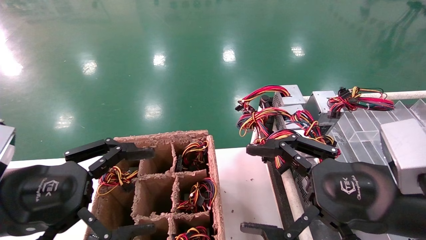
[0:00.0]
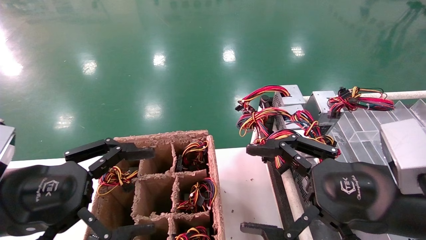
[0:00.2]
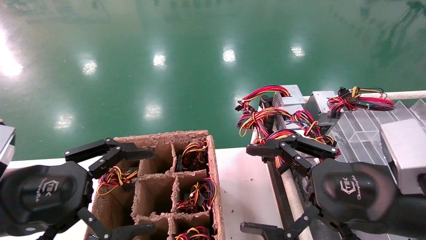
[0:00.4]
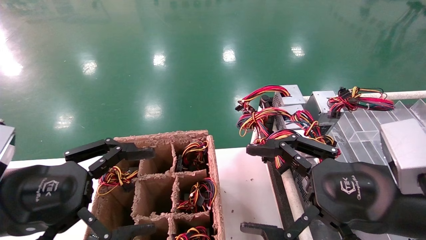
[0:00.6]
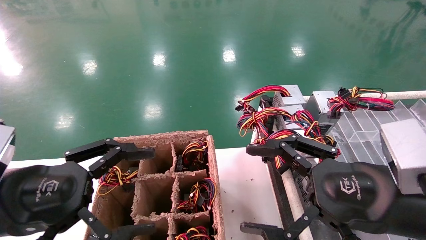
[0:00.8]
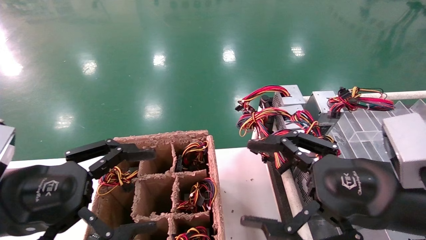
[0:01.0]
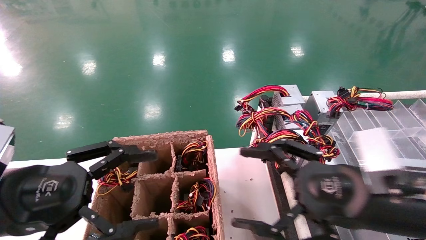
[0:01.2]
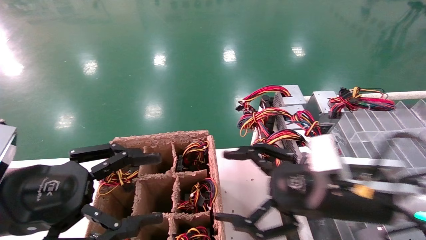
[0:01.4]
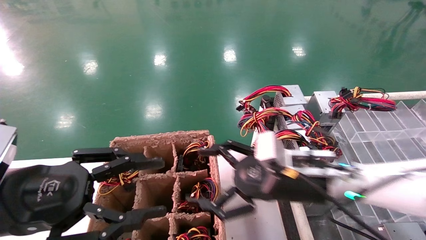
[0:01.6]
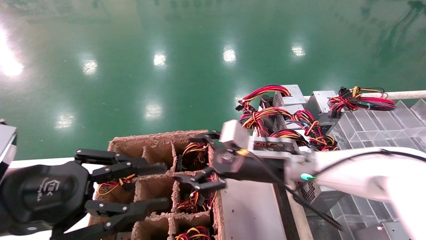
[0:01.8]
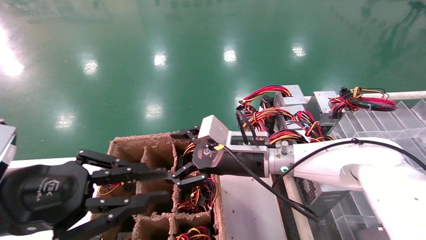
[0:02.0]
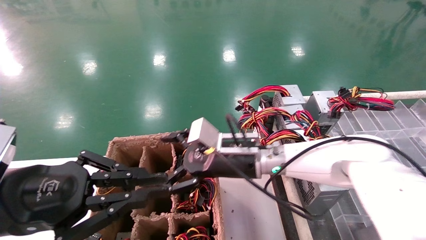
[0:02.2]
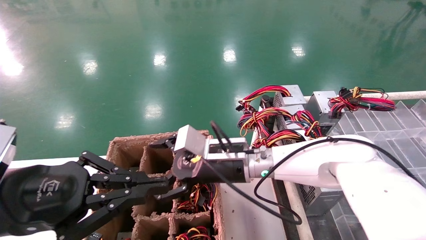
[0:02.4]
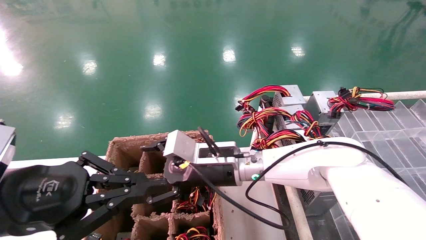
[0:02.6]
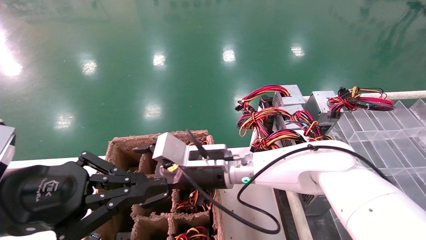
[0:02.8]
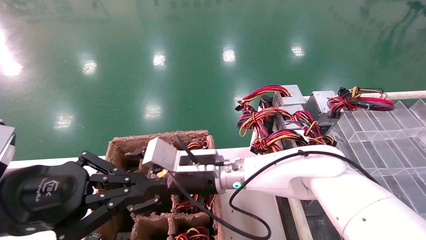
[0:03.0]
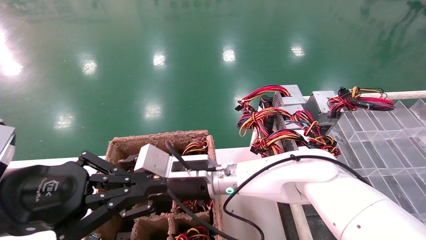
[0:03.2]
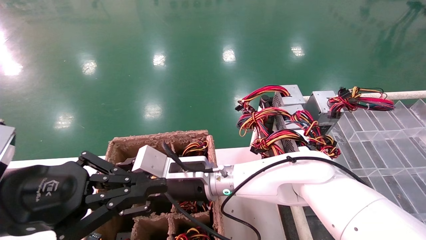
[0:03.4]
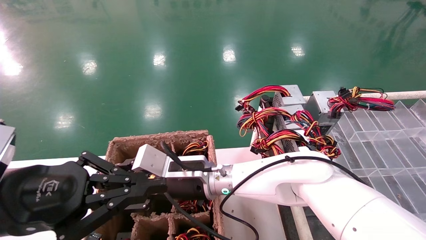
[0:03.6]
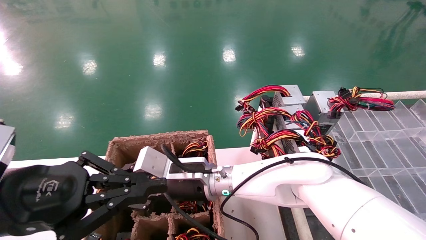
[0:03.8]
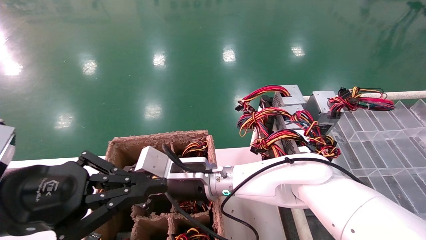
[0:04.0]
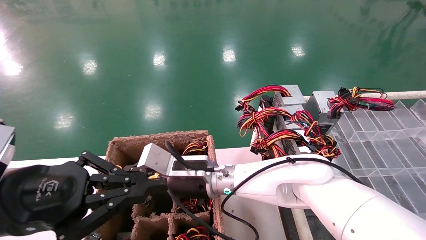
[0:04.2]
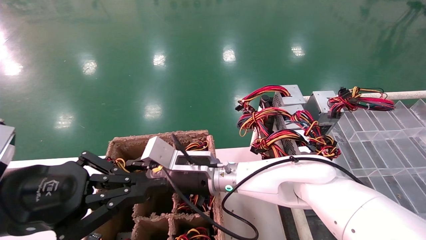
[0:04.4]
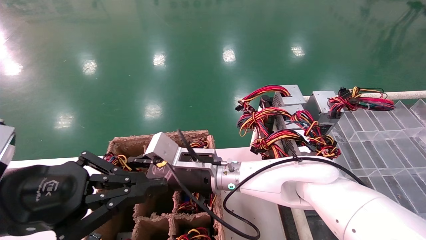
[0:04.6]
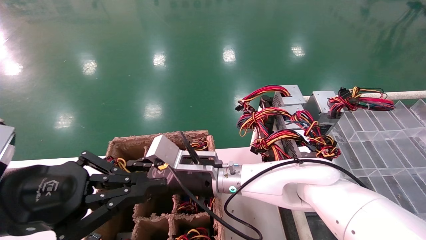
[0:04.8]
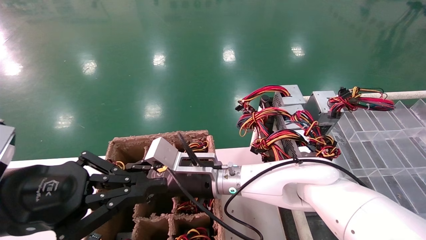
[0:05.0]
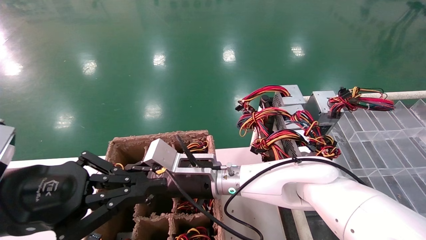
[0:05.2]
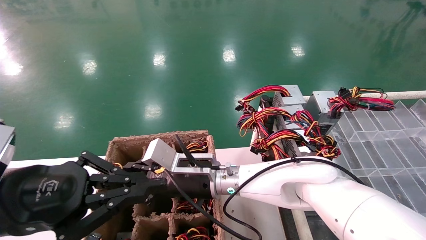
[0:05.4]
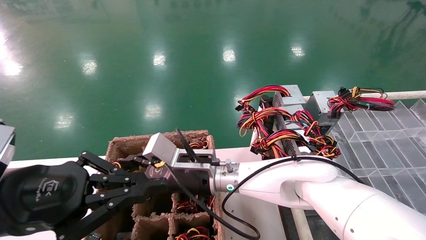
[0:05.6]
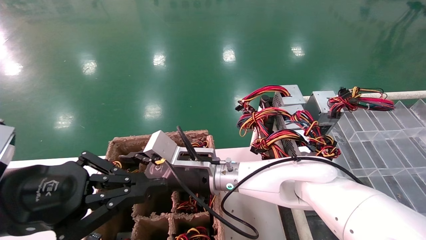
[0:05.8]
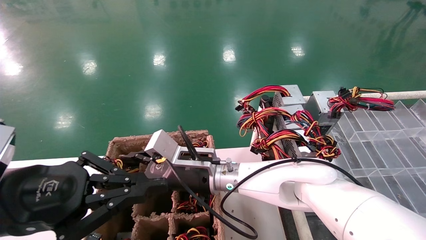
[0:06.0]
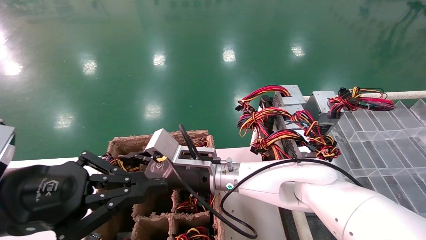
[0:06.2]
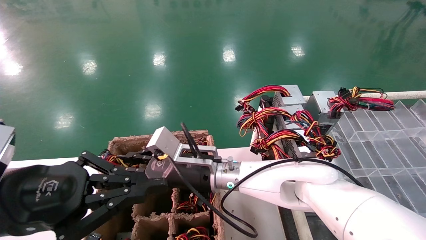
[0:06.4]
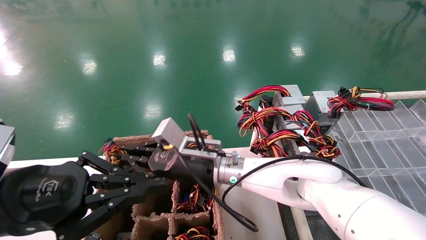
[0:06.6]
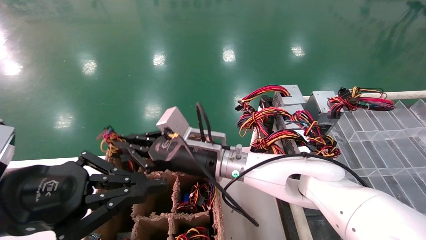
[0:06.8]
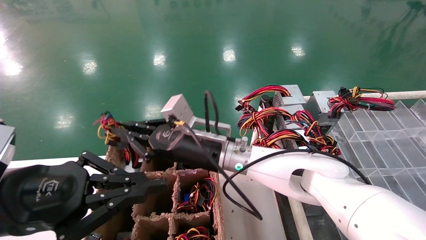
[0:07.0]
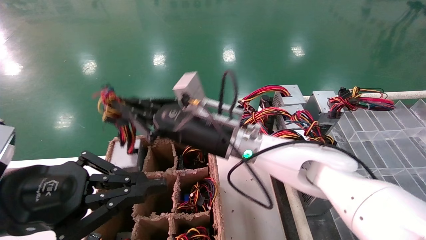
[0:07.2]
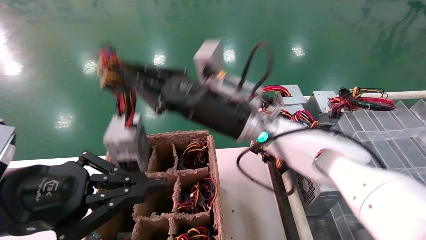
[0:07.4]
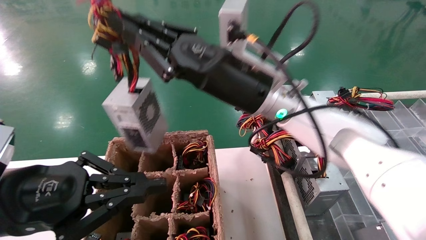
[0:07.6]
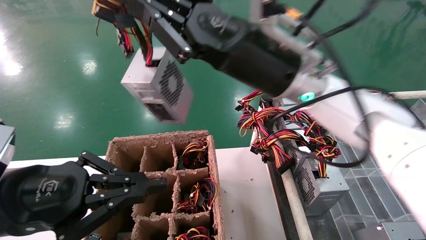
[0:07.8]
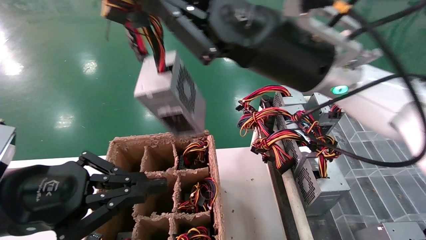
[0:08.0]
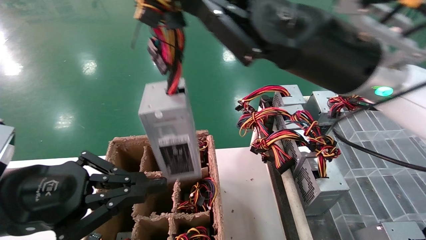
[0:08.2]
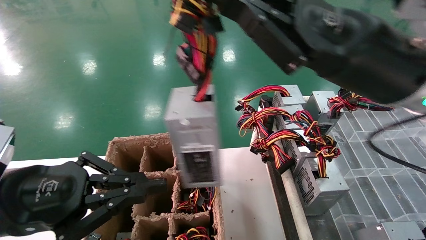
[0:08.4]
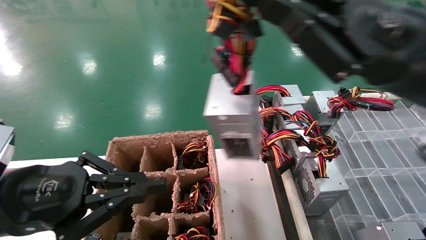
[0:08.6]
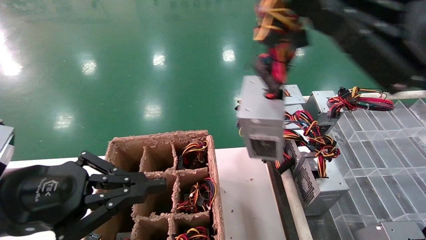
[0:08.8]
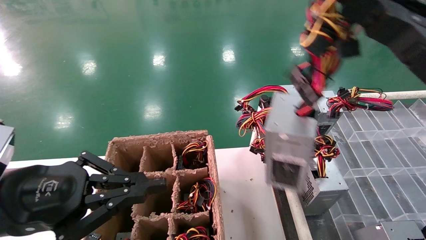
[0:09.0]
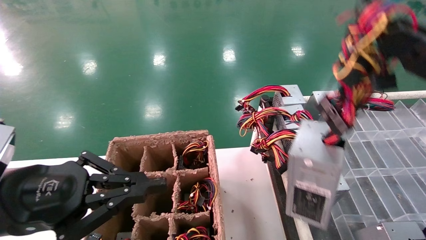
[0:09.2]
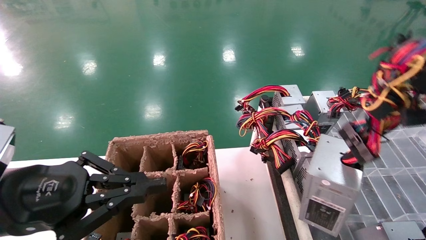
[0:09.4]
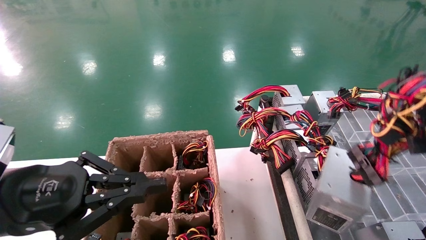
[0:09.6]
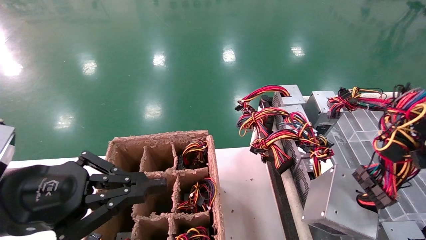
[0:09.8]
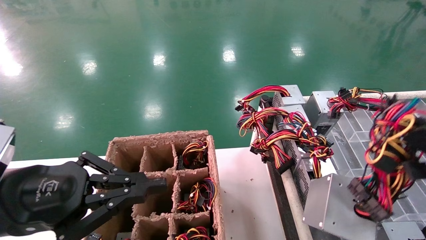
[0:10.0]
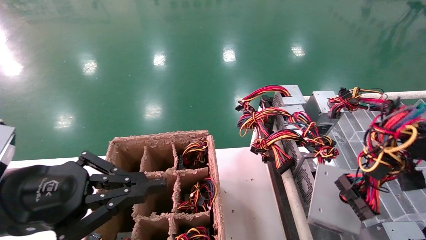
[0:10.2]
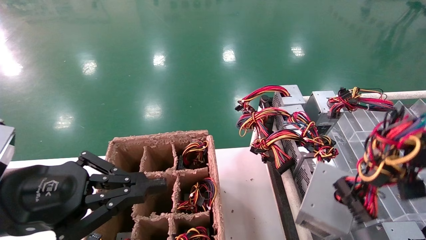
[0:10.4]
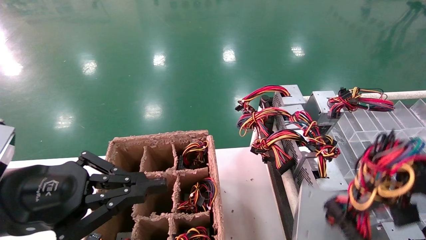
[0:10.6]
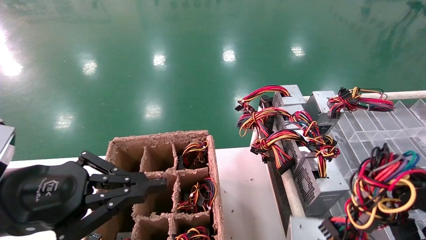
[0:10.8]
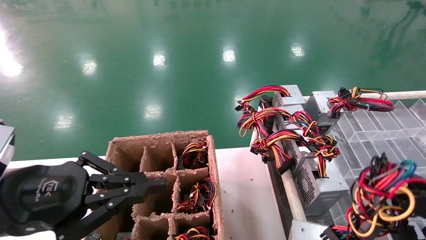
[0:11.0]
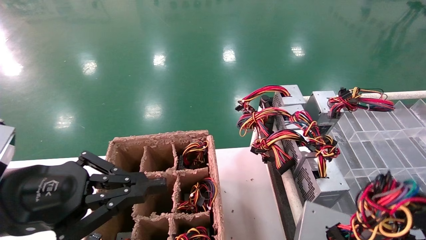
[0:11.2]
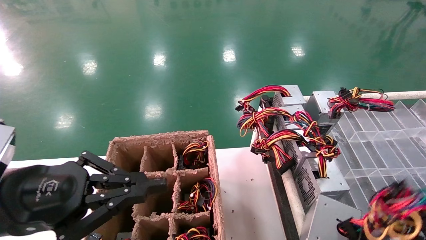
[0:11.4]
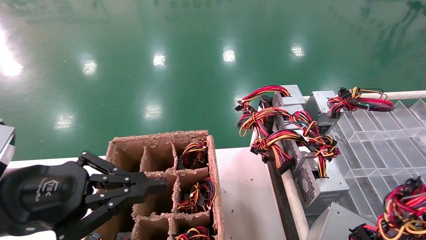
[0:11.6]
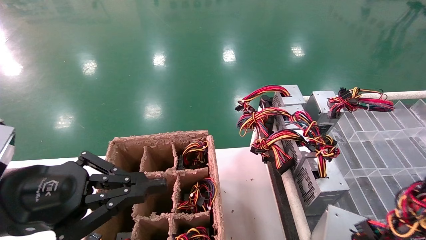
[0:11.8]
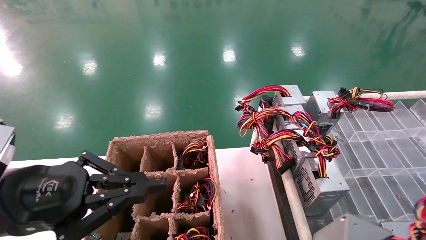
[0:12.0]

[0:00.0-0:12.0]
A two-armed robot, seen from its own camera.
Step, 0:01.4 to 0:04.2: Grab the main unit power supply from the containment box.
0:00.0 to 0:01.6: The right gripper moves forward and to the left, about 15 cm.
0:01.6 to 0:03.0: The left gripper closes up. The right gripper shifts about 15 cm to the left.
0:03.0 to 0:04.4: The right gripper closes its fingers.
0:04.4 to 0:06.0: The grippers make only small movements.
0:06.0 to 0:07.6: The right gripper shifts approximately 20 cm upward and to the right.
0:07.6 to 0:09.0: The right gripper travels to the right and backward by about 30 cm.
0:09.0 to 0:10.4: The right gripper moves downward and backward, about 15 cm.
0:10.4 to 0:12.0: The right gripper goes approximately 10 cm to the right and backward.

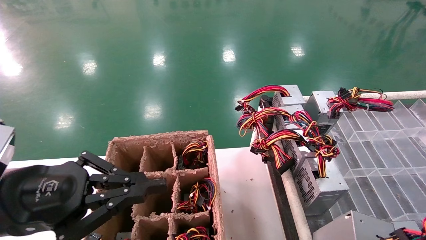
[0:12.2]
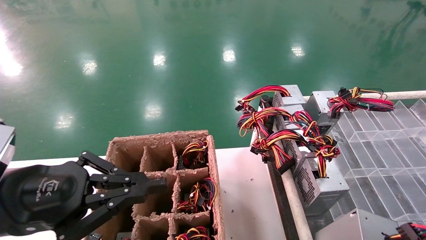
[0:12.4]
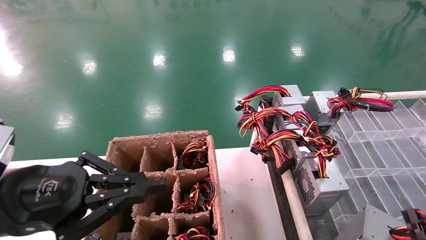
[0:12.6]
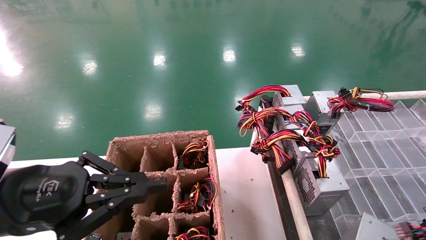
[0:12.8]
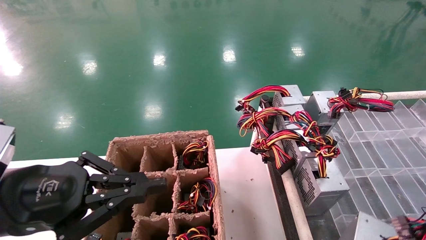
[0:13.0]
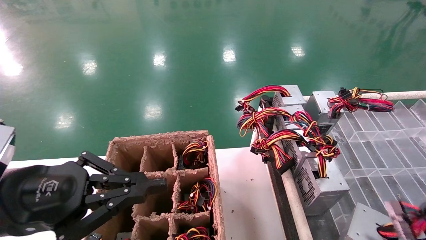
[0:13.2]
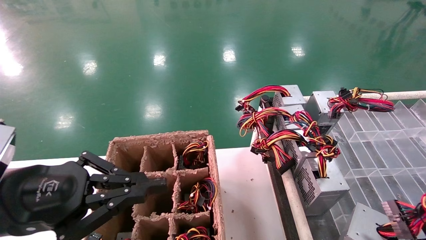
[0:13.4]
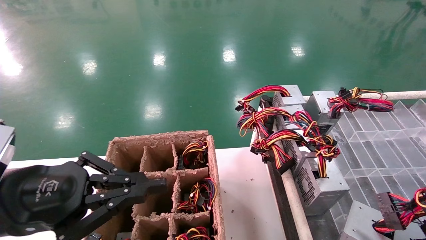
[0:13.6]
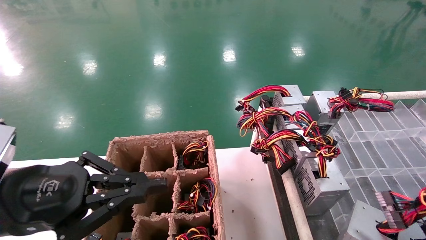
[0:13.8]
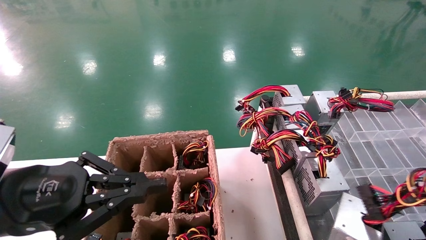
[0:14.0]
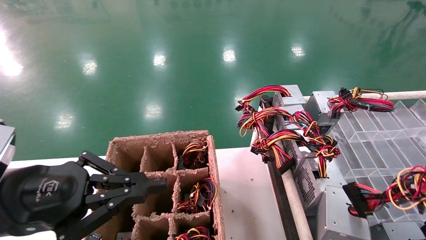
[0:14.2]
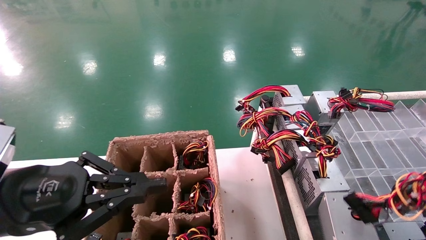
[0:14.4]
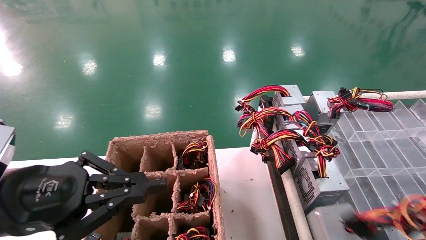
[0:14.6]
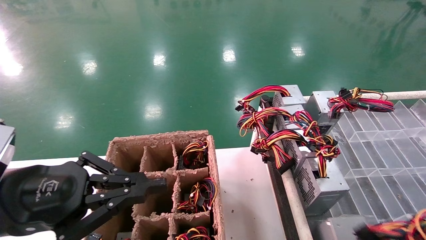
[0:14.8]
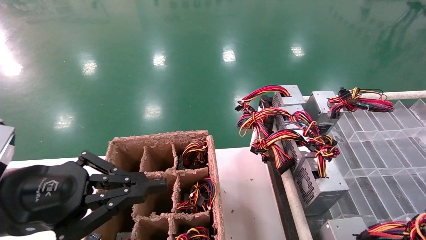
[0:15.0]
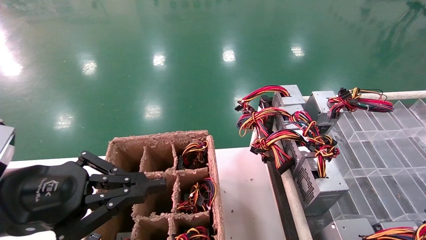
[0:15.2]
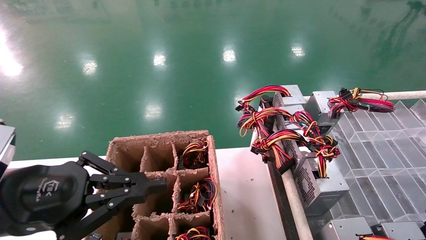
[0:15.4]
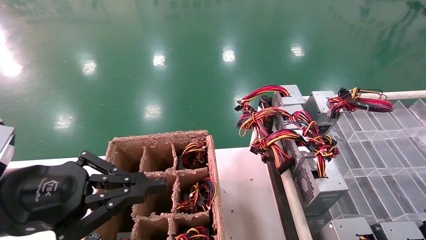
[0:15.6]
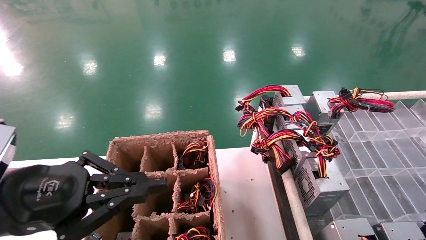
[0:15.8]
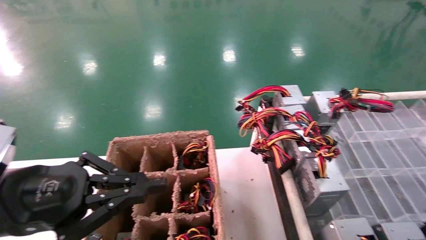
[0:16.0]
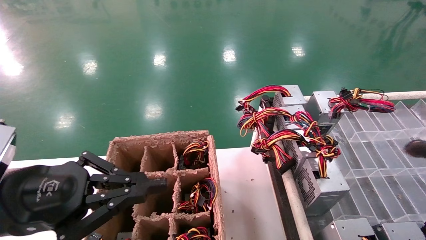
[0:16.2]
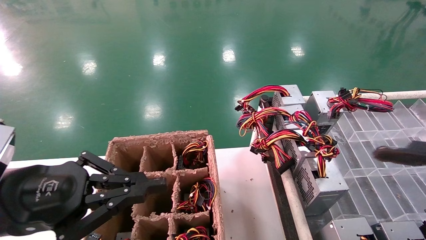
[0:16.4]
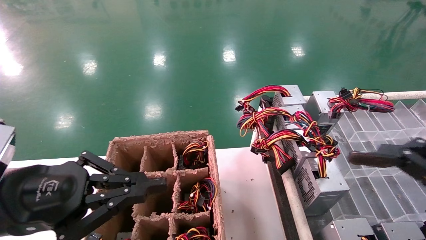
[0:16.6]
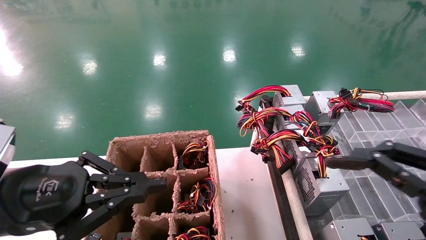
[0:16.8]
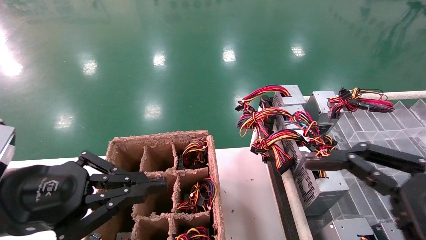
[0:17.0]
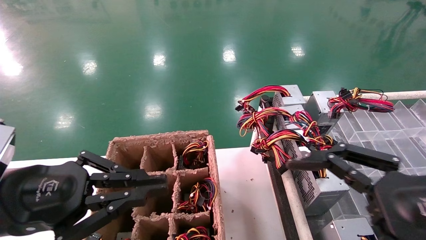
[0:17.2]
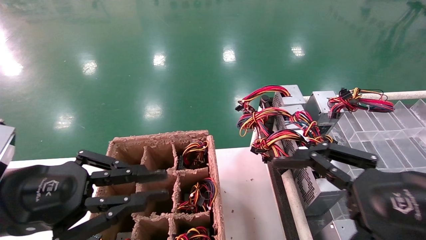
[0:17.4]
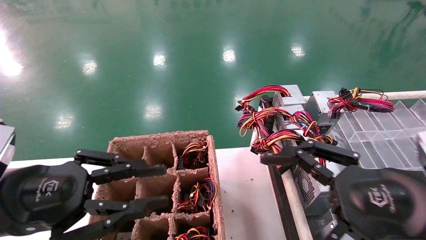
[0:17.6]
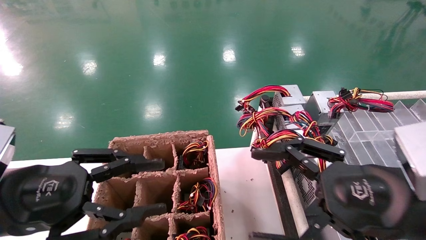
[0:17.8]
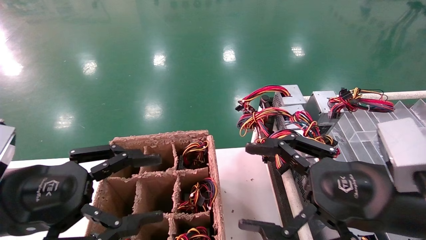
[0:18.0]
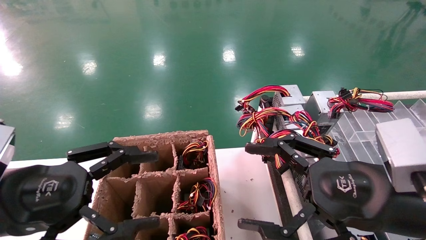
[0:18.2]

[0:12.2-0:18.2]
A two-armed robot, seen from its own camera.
Step, 0:12.2 to 0:16.2: Place the main unit power supply in the designated area.
0:12.2 to 0:13.8: The right gripper ends up approximately 5 cm from where it was.
0:13.8 to 0:15.2: The grippers stay close to where they were, moving slightly.
0:15.2 to 0:16.6: The right gripper goes about 10 cm to the left and forward, and opens its fingers.
0:16.6 to 0:18.2: The left gripper opens. The right gripper is displaced to the left and forward by some 15 cm.
